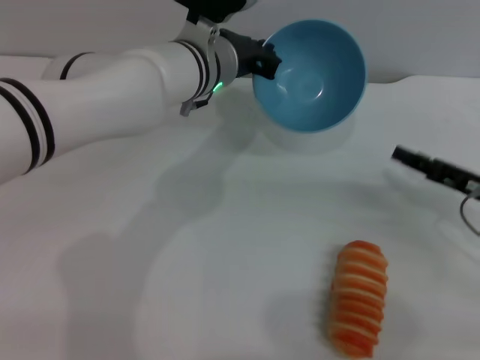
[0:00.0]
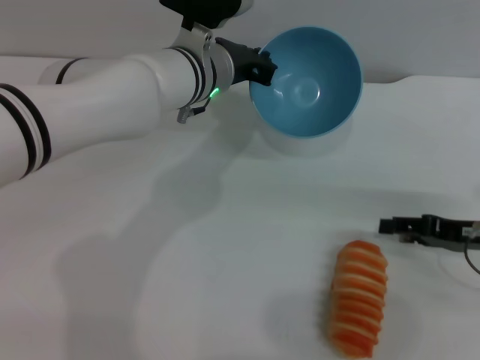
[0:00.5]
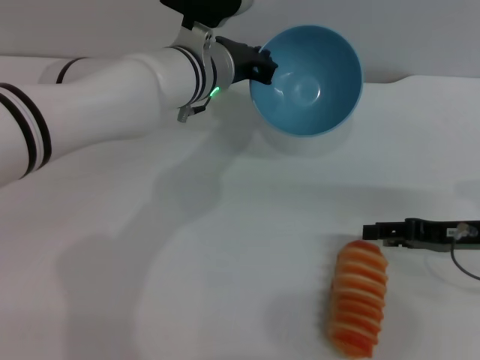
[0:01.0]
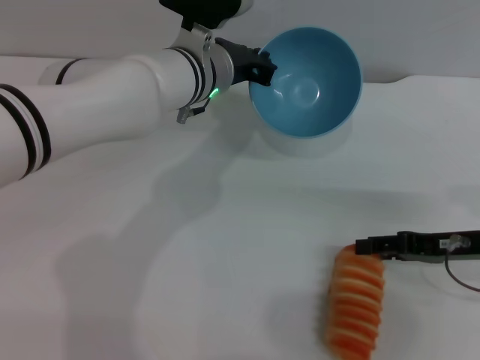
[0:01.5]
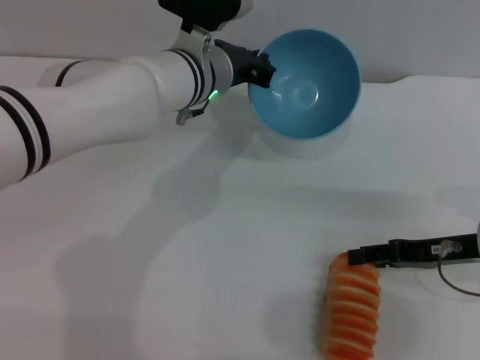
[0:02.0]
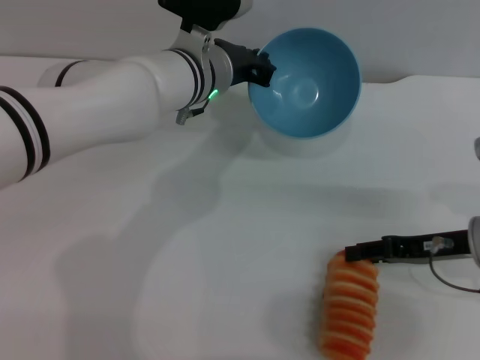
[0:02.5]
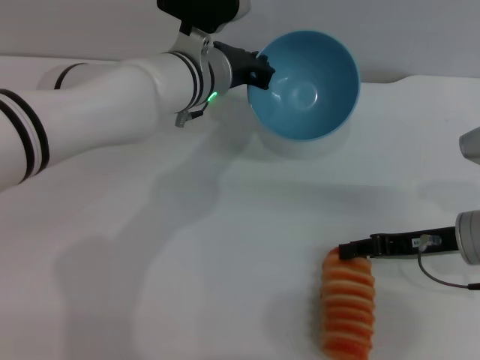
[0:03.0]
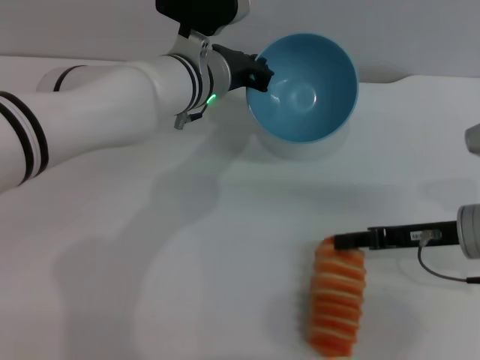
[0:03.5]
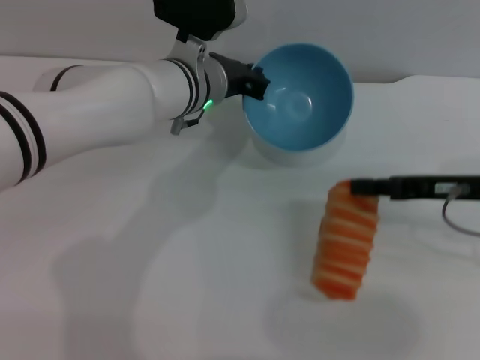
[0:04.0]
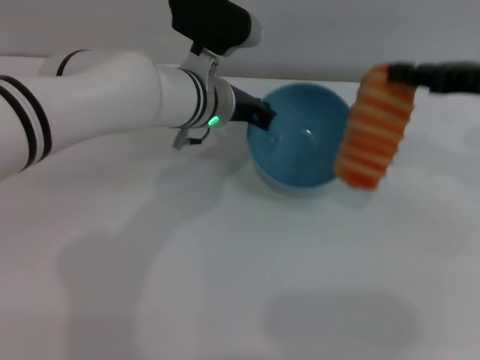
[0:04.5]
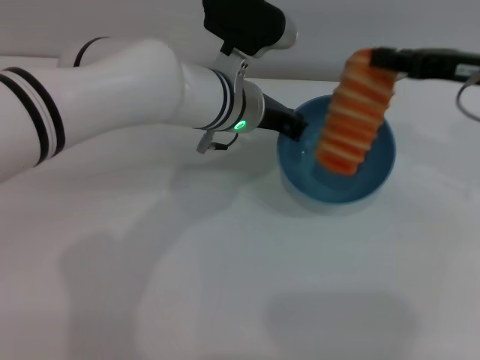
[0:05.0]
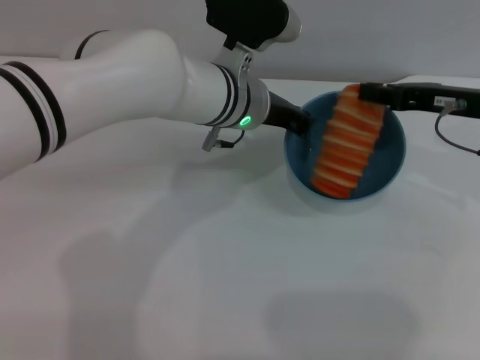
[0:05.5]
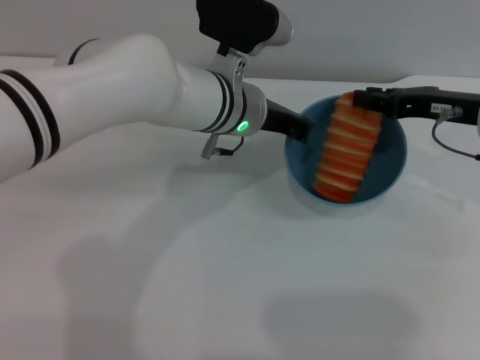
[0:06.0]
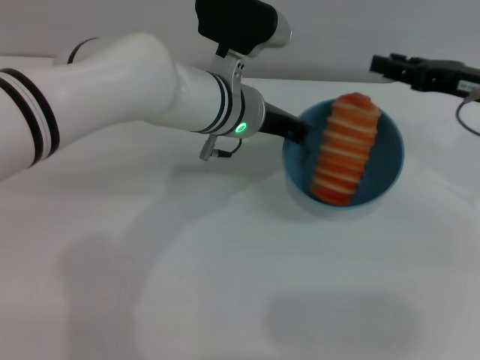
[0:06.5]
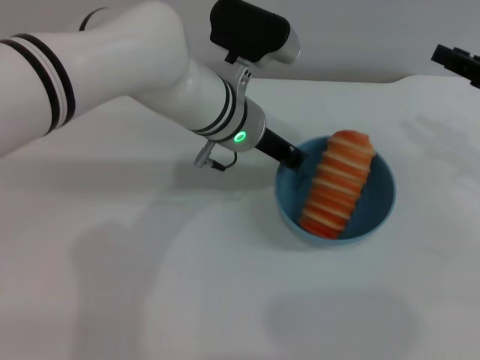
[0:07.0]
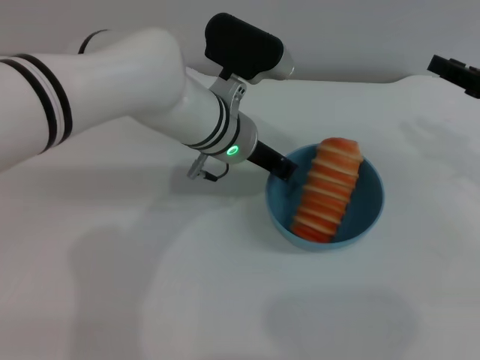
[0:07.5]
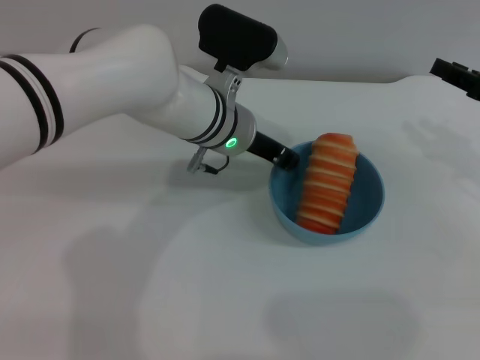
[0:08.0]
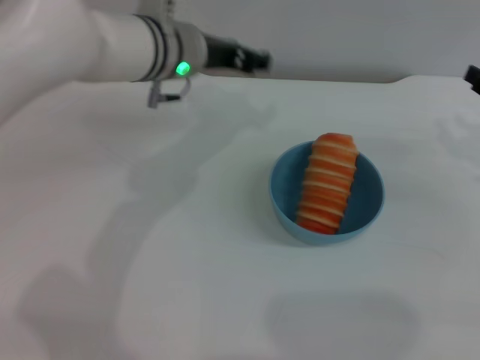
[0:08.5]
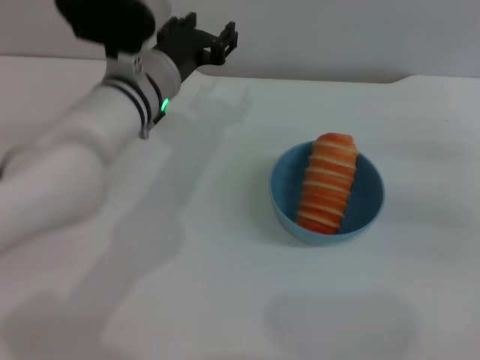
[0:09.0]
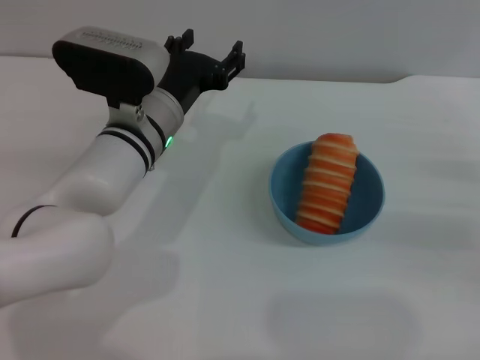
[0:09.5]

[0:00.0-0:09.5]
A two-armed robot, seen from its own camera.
Task of the whole recording: put the bread into the blue bowl and pour it out repeatedly.
Step, 0:00.0 to 0:04.0: Pick up the bread with the right gripper.
Step, 0:04.5 to 0:06.0: Place the bread into the bowl.
Step, 0:06.5 to 0:08.0: Place the bowl on the table.
0:02.0 to 0:04.0: The right gripper changes place by roughly 5 cm, and closes up.
0:04.0 to 0:05.5: The right gripper travels forward by some 5 cm.
0:05.5 to 0:07.5: The right gripper is displaced to the right by roughly 5 cm, and opens up.
0:07.5 to 0:09.5: The right gripper heads downward and backward, covering approximately 10 cm. Meanwhile the left gripper shifts about 5 cm to the left, and opens up.
